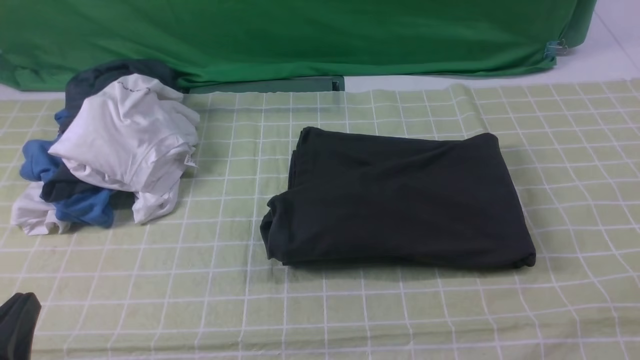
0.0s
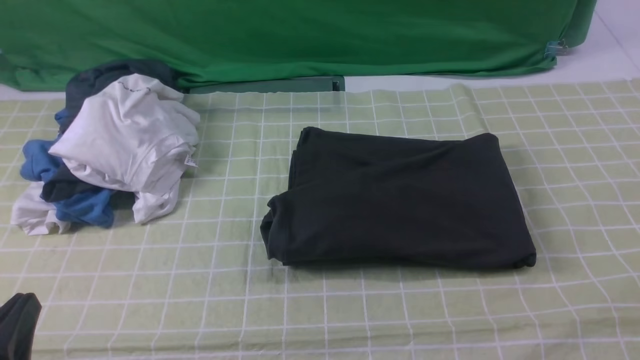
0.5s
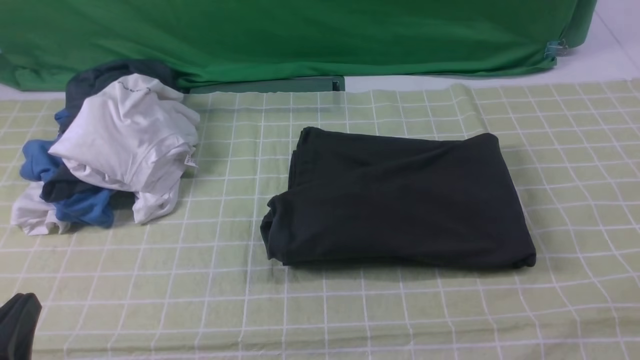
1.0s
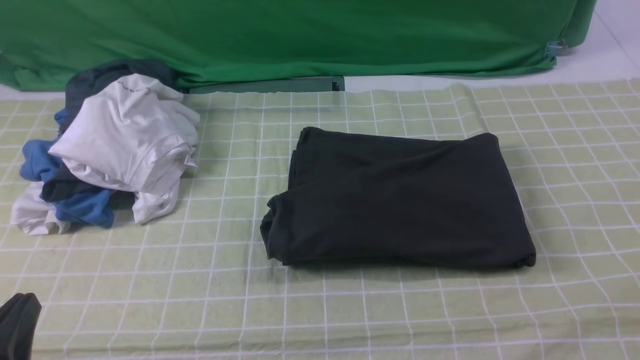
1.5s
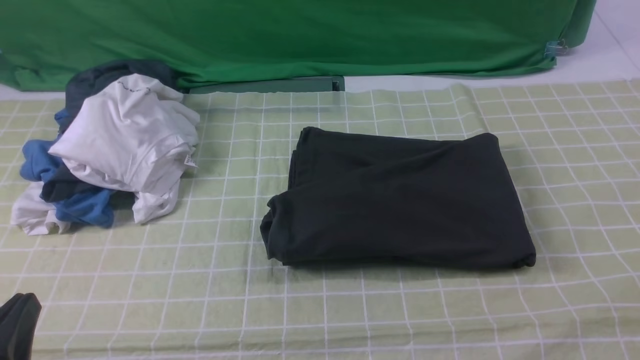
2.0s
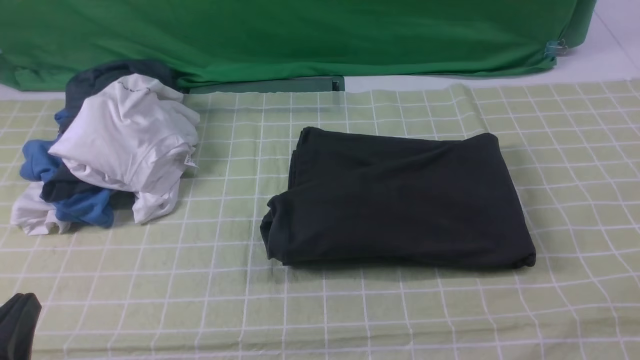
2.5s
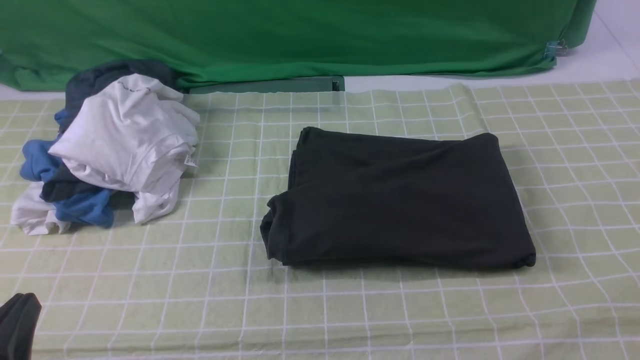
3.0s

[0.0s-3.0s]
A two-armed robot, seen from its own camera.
1.5s to 3.0s: Both grippers stay put.

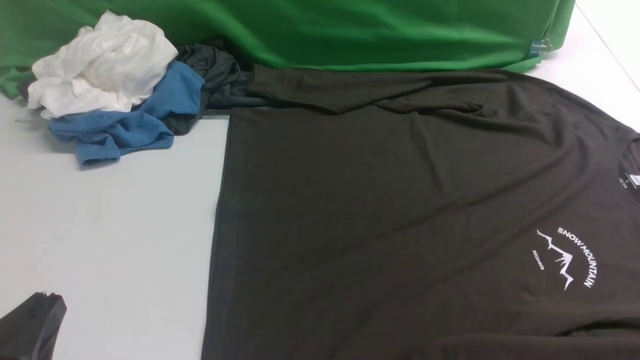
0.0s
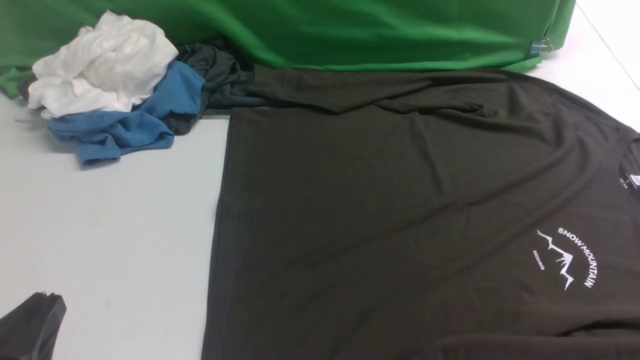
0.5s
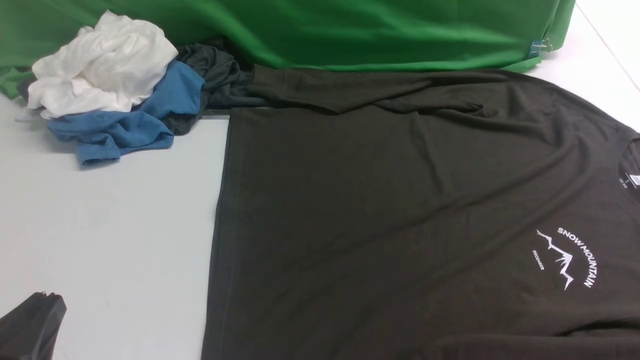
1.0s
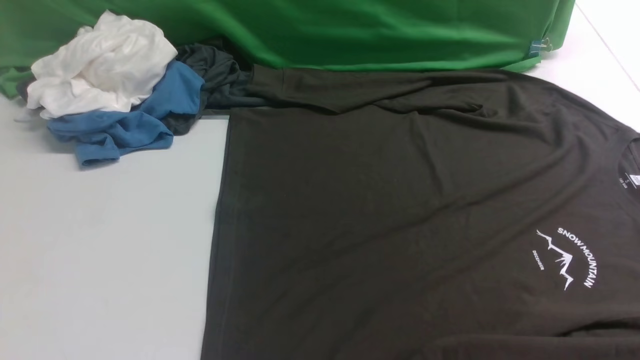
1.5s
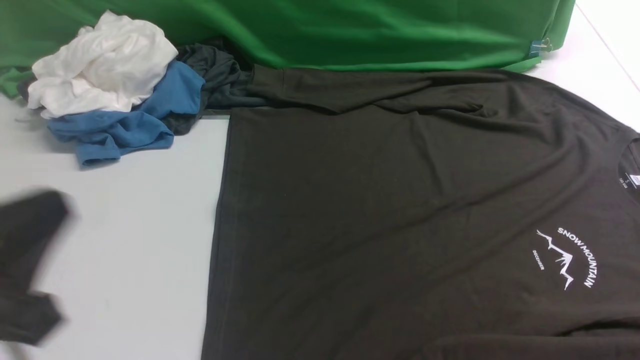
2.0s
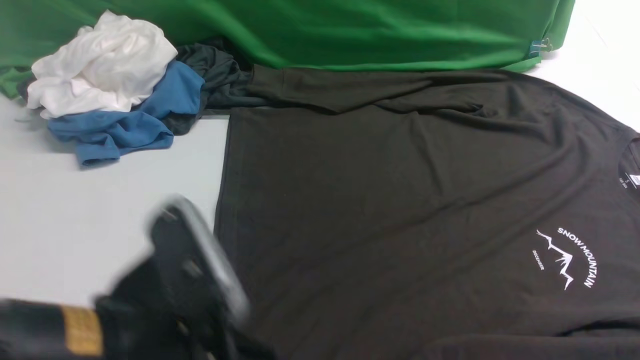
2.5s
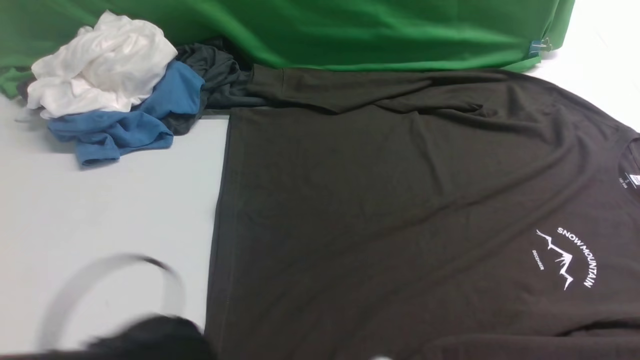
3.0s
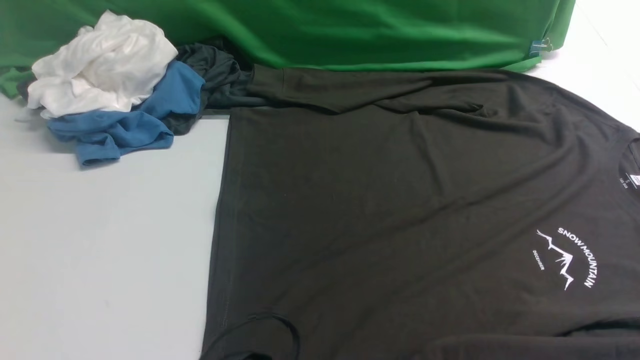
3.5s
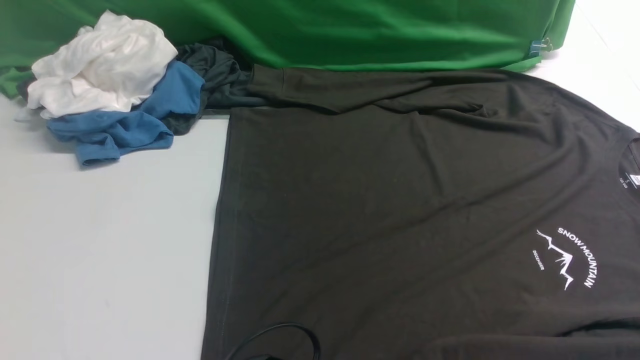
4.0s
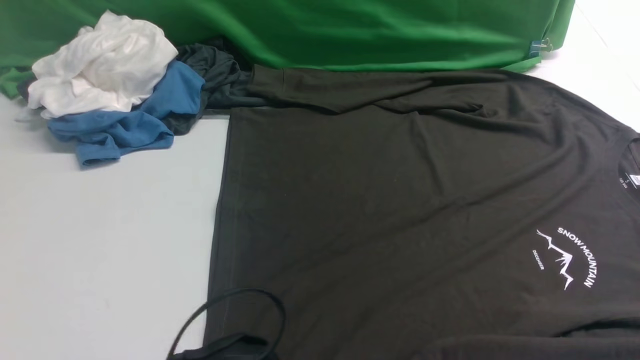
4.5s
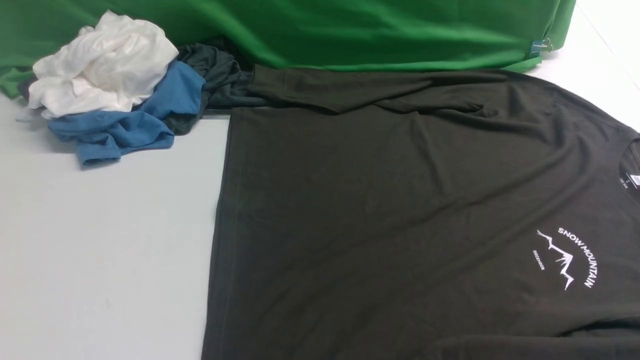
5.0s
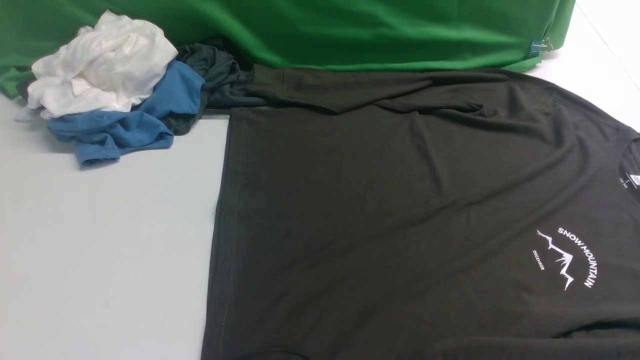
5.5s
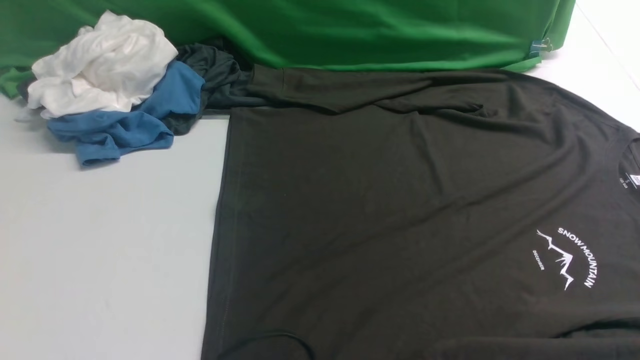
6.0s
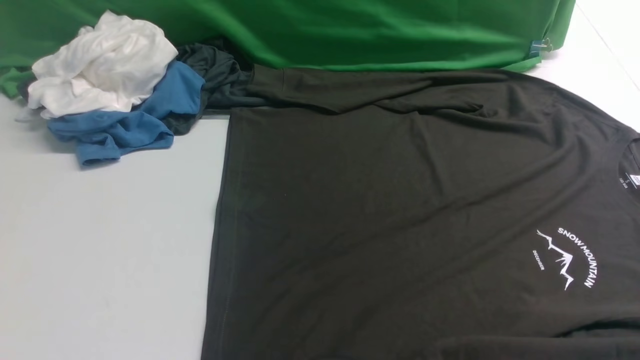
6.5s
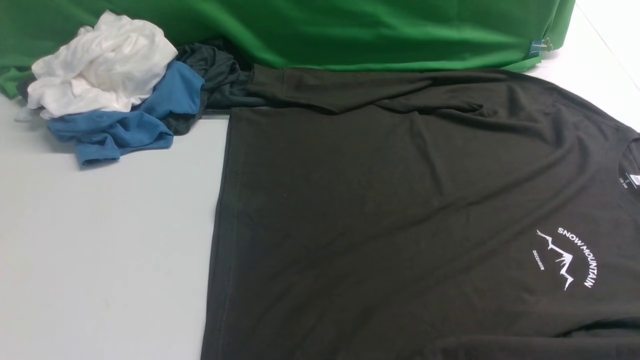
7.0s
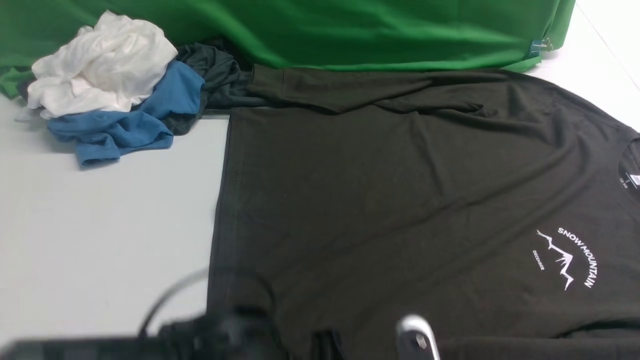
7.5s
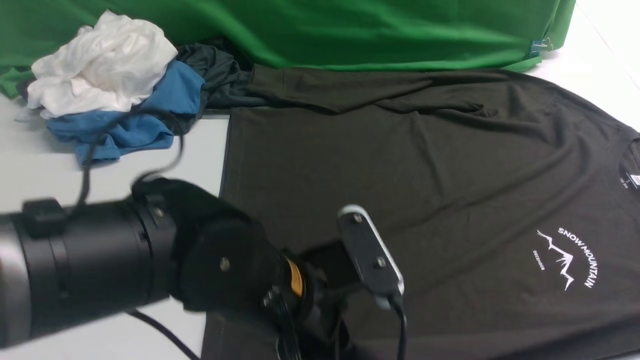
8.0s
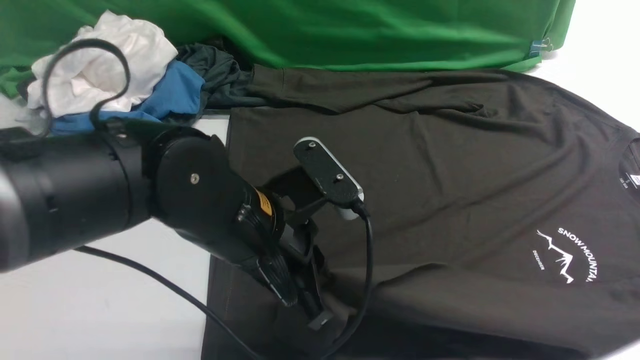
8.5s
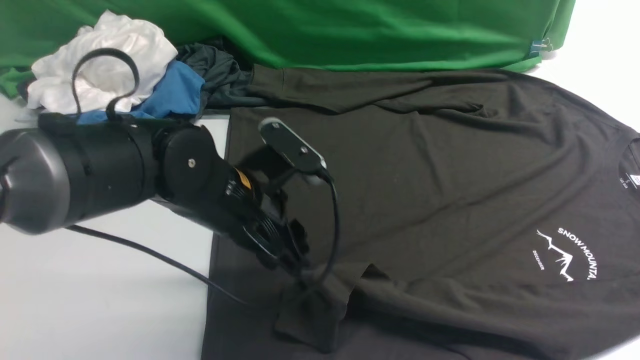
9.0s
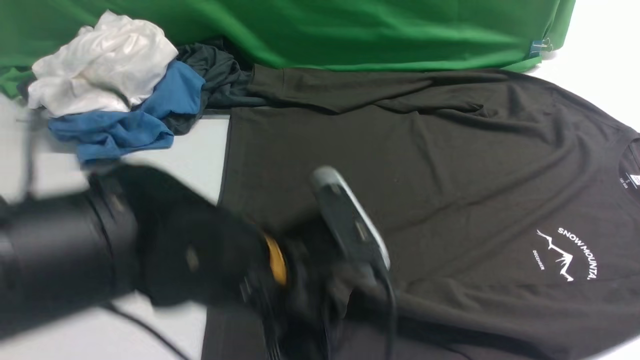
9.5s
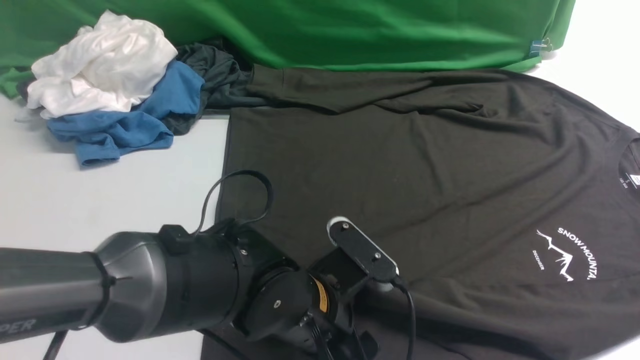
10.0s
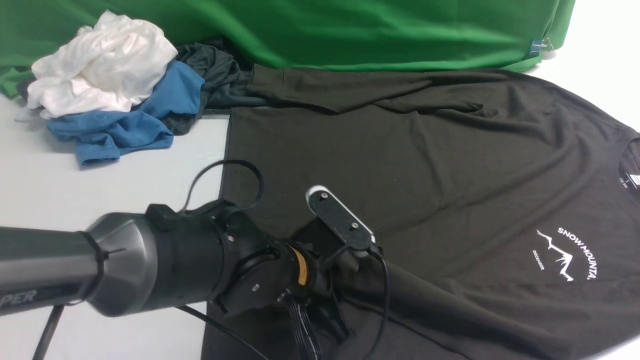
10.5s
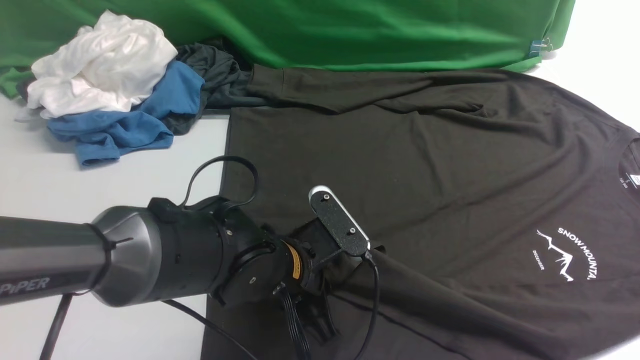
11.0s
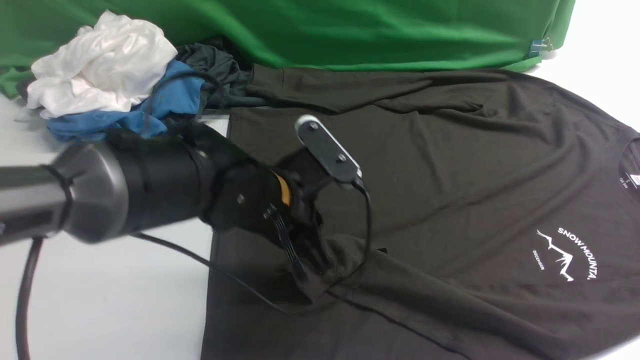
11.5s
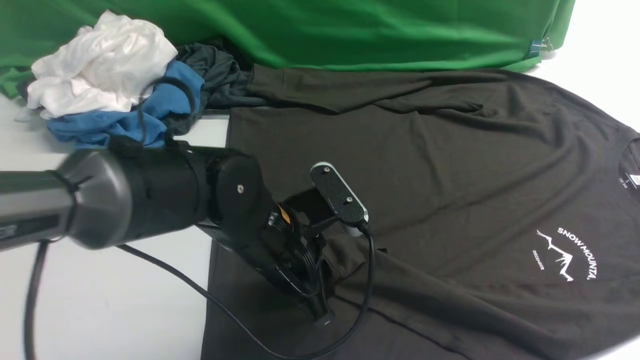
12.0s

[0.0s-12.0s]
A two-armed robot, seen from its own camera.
Step, 0.0s to 8.0s: use the left arm to clamp the cuff closest to it.
0.0s to 2.0s: The left gripper shifts roughly 10 cm upward.
2.0s to 4.0s: The left gripper moves to the right and downward, roughly 25 cm, and opens, then closes again.
6.0s to 8.0s: The left gripper heads forward and upward, covering some 10 cm, and closes.
8.0s to 10.0s: The left gripper is displaced downward by roughly 5 cm, moves approximately 10 cm forward and comes back, and opens up.
10.0s to 12.0s: The left gripper is displaced forward by some 5 cm, and closes.

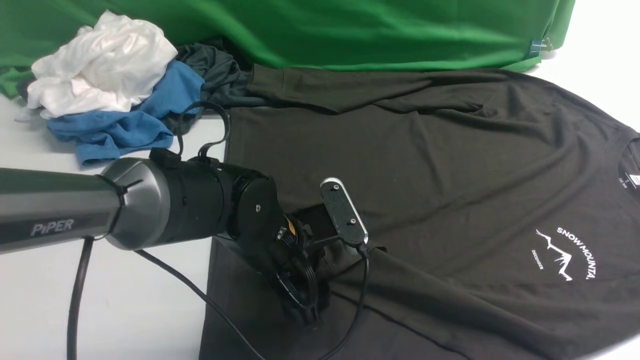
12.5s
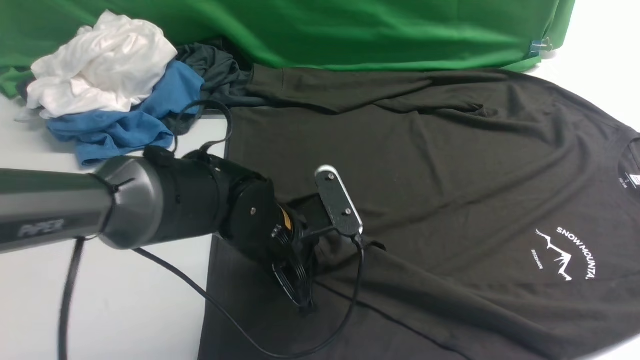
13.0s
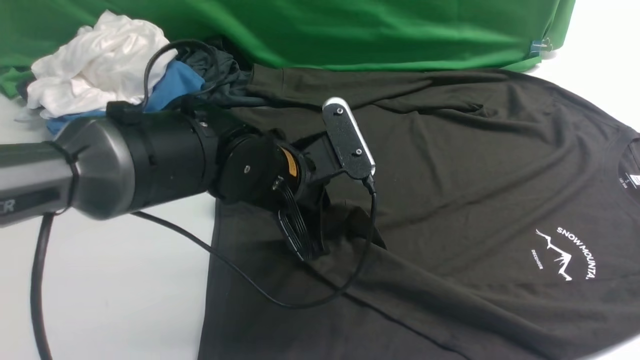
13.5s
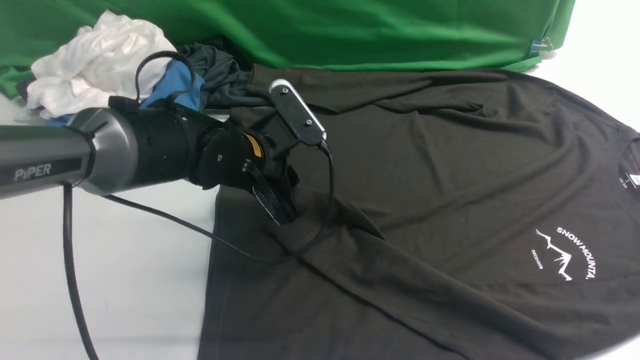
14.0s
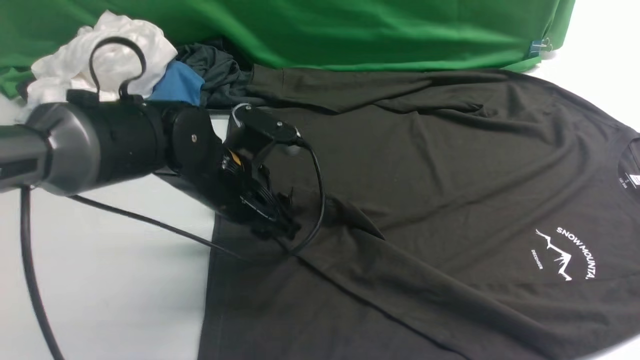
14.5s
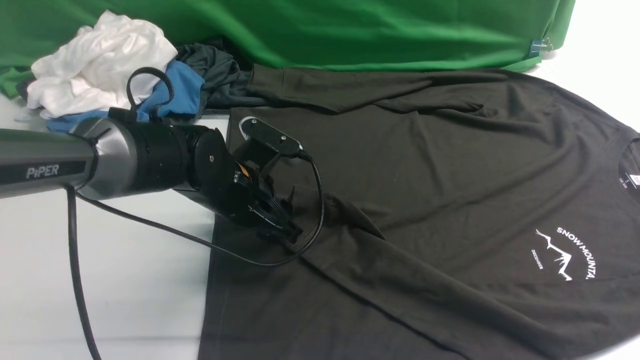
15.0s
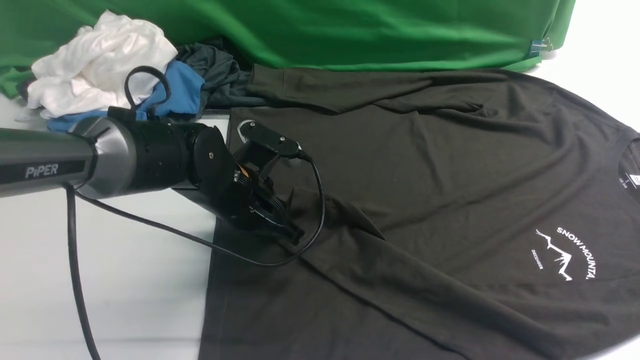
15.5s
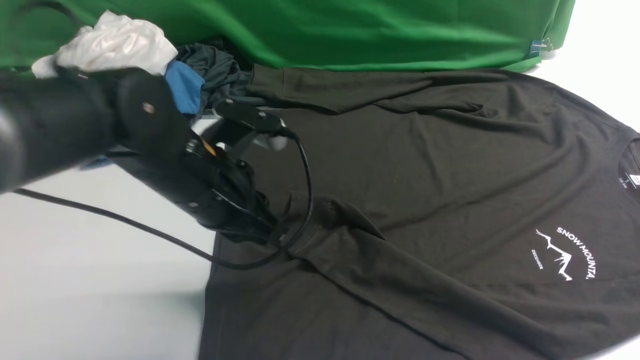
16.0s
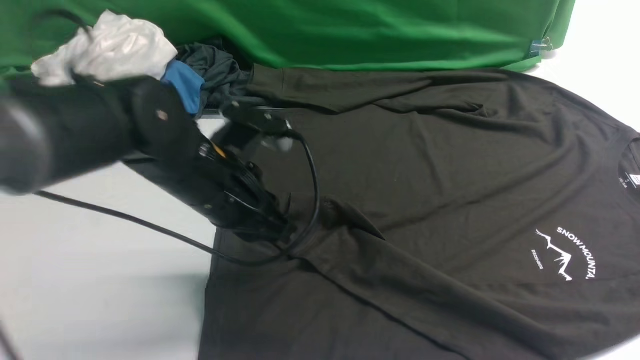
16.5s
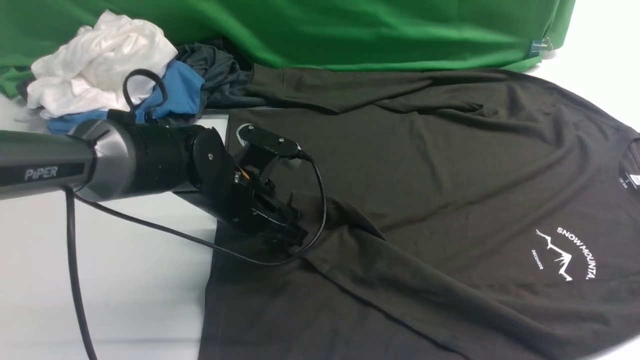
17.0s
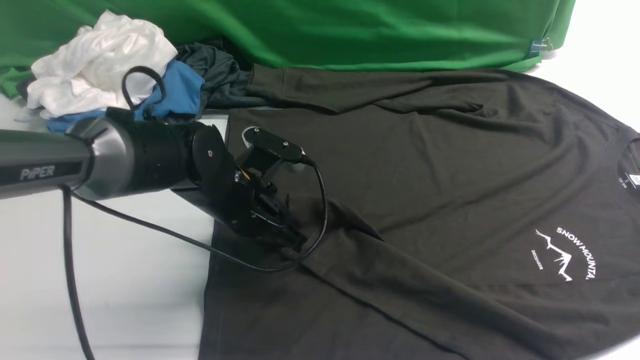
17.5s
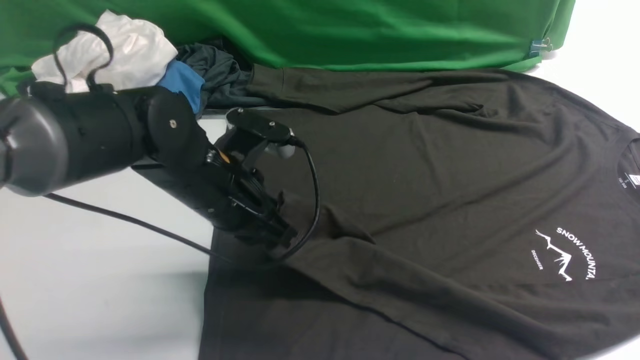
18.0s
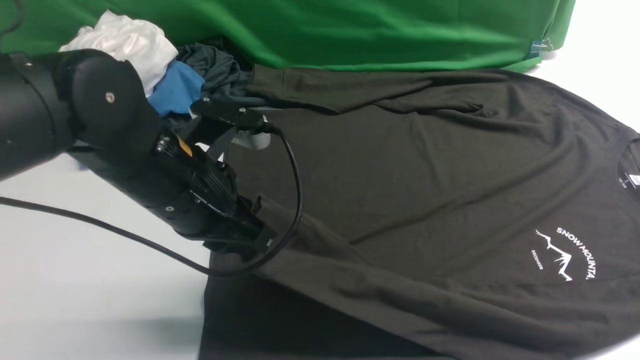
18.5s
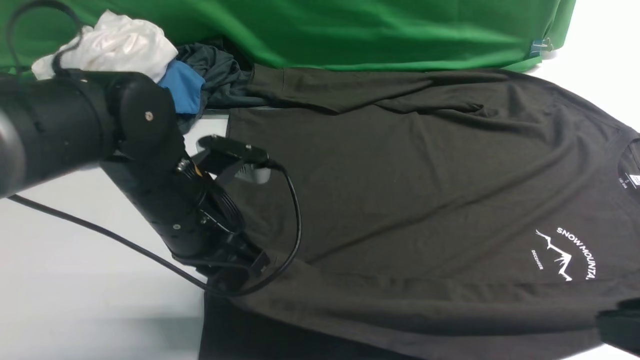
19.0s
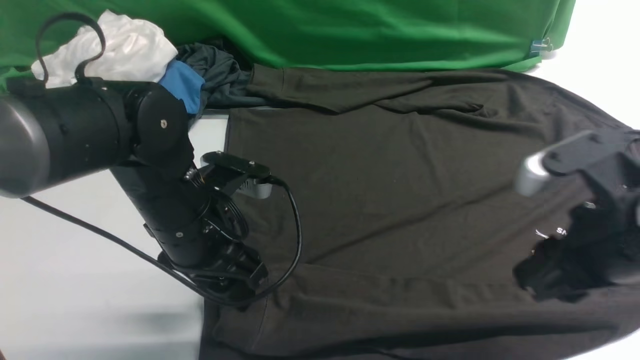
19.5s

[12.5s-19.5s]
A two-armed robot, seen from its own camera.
12.5s to 14.5s: The left gripper is displaced forward and to the left by approximately 10 cm, and closes and opens again.
14.5s to 16.0s: The left gripper moves some 5 cm, and closes.
16.0s to 17.5s: The left gripper heads downward, covering some 5 cm, and opens and closes again.
17.5s to 19.5s: The right gripper is displaced forward and downward by roughly 20 cm; the left gripper heads backward and upward, covering approximately 10 cm, and opens.
